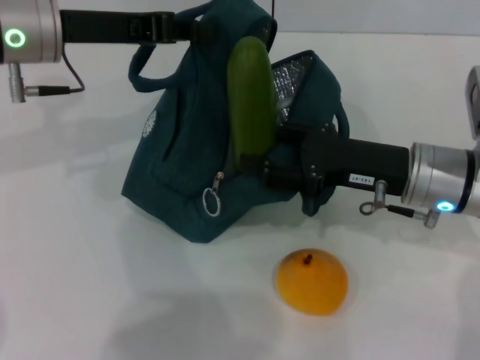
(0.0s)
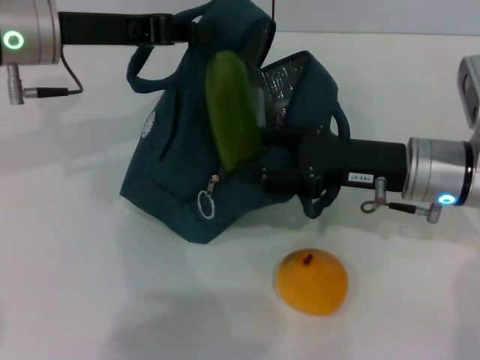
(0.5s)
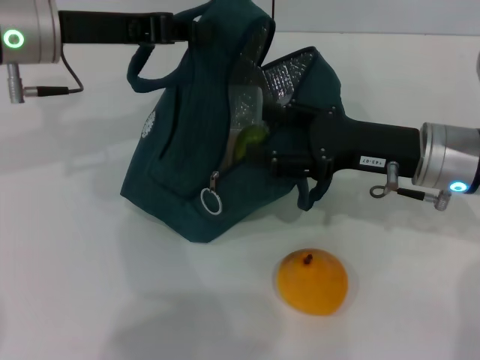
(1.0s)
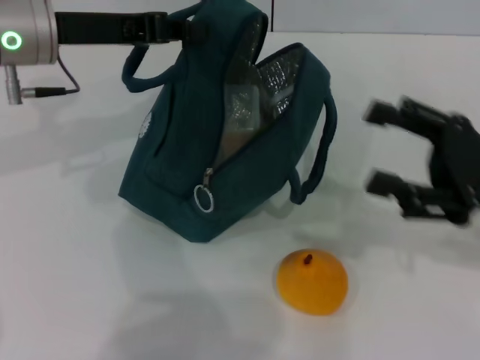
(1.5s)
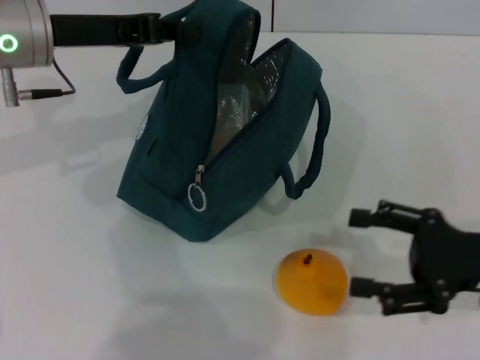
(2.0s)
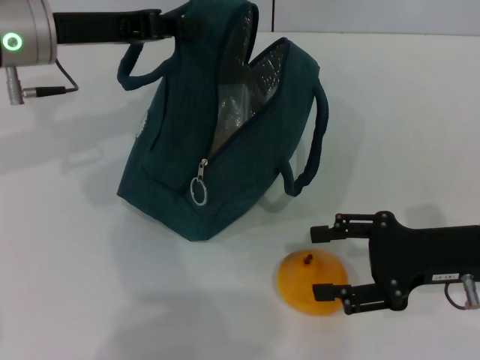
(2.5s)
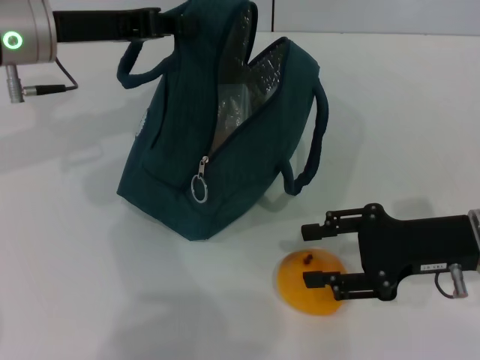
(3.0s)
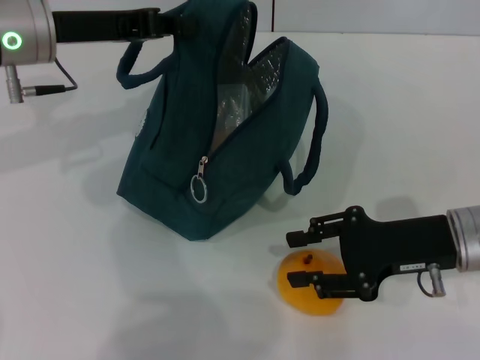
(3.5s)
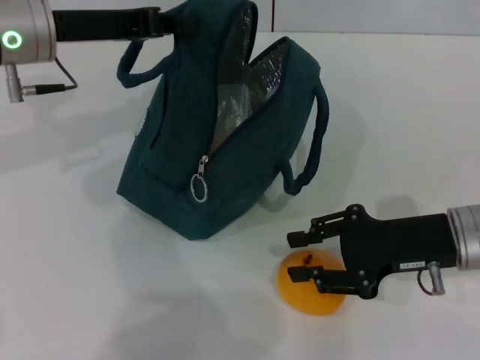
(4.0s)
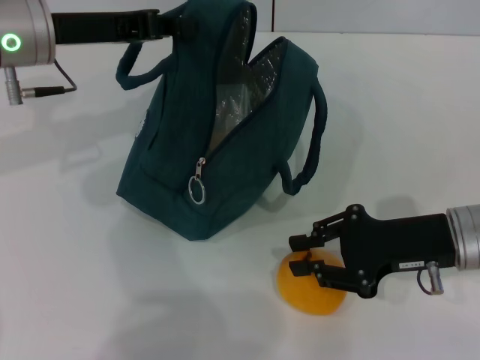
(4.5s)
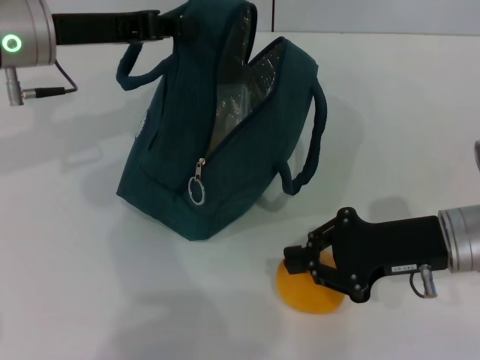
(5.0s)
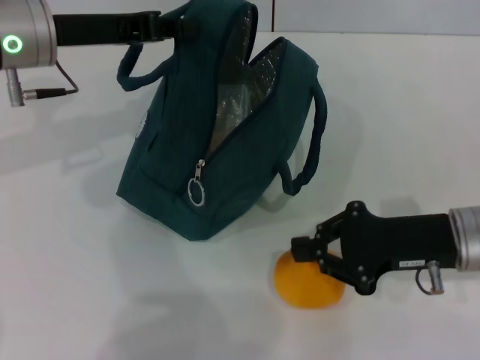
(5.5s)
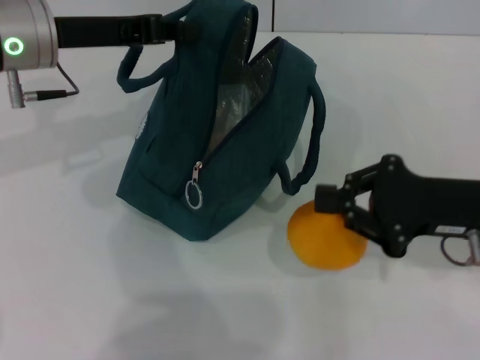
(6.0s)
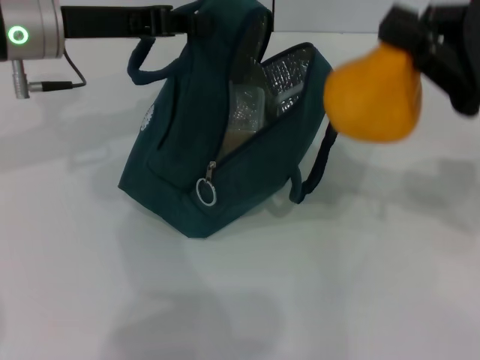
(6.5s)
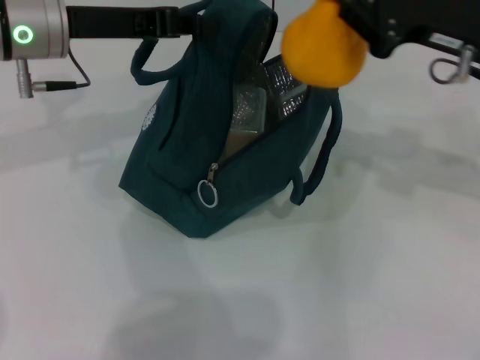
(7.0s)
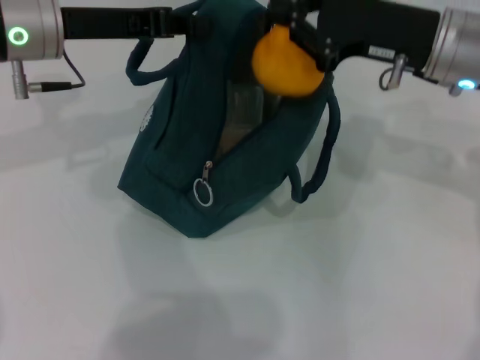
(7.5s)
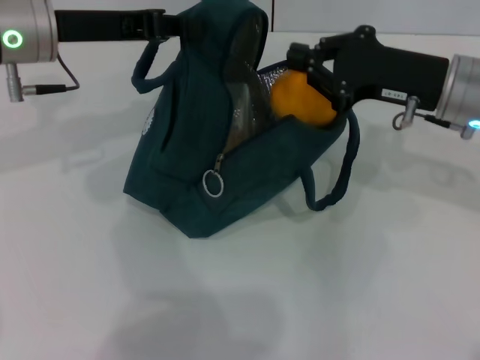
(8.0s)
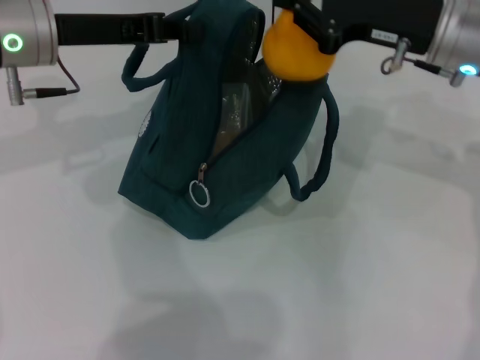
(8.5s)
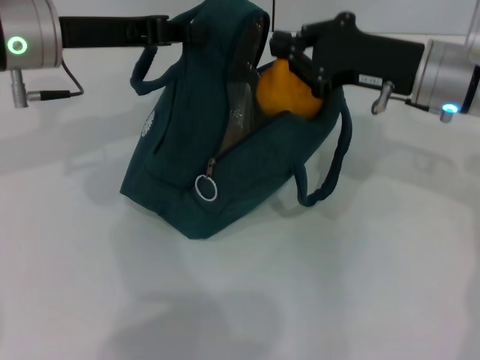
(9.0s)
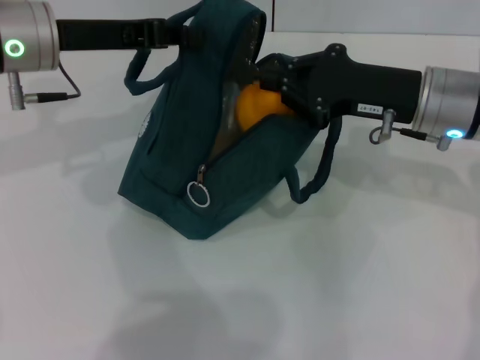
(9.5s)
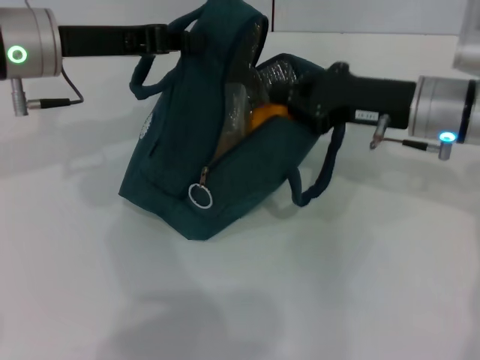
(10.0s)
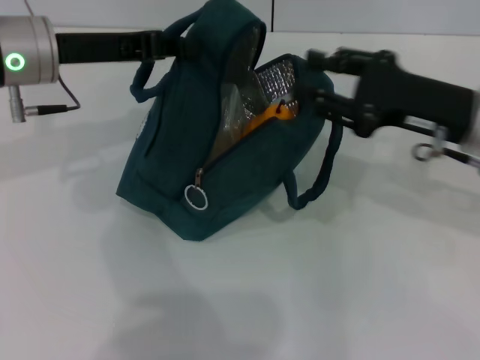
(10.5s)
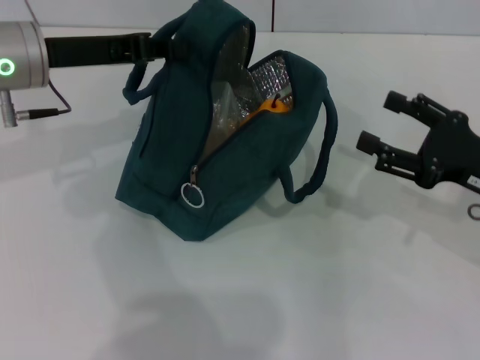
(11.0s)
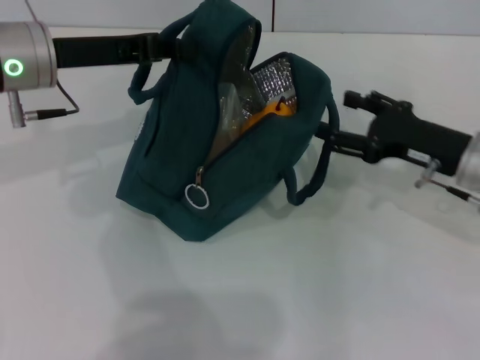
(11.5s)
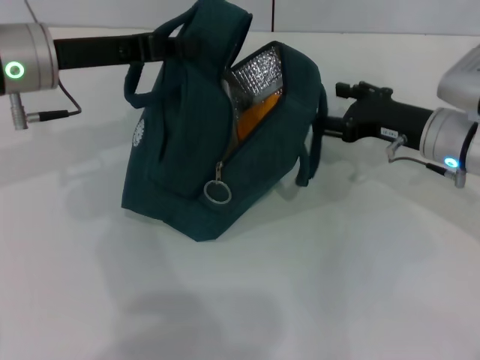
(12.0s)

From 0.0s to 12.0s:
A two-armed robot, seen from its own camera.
Step, from 1.5s to 5.0s: Grab the pear with your right hand.
From 0.0s to 2.0s: The right gripper shifts approximately 10 cm to the right and backward.
From 2.0s to 4.0s: The right gripper shifts roughly 5 cm to the left, and closes up.
From 4.0s to 6.0s: The right gripper closes up.
From 6.0s to 8.0s: The right gripper is displaced forward by some 10 cm.
From 8.0s to 10.0s: The grippers stay close to where they were, moving slightly.
From 10.0s to 12.0s: The right gripper goes to the right and returns, approximately 10 cm each way, and opens up.

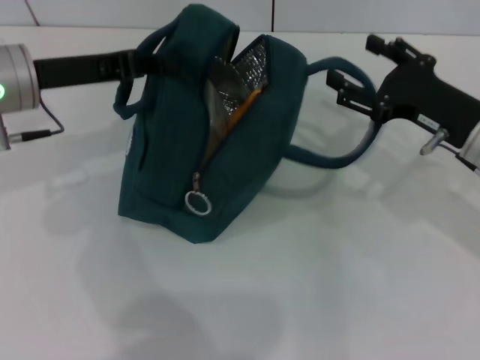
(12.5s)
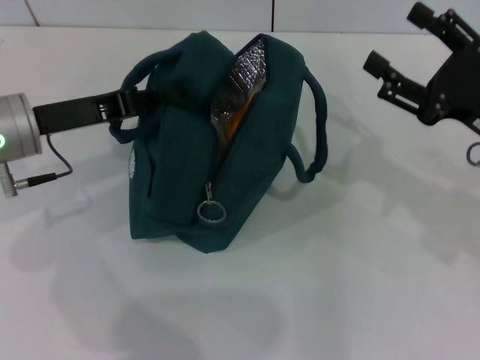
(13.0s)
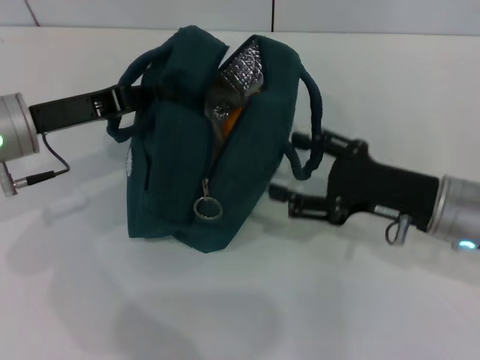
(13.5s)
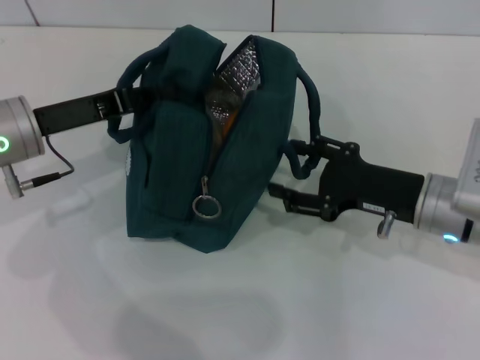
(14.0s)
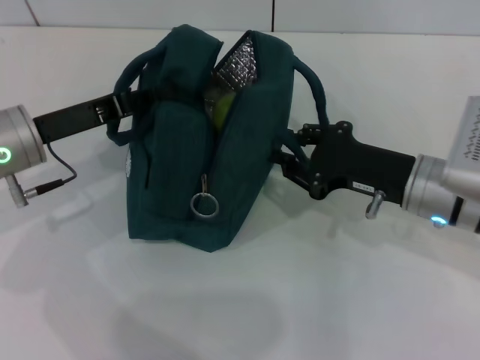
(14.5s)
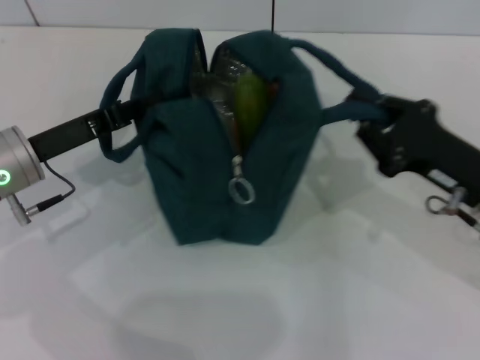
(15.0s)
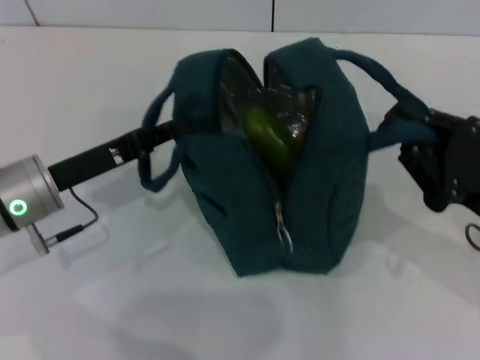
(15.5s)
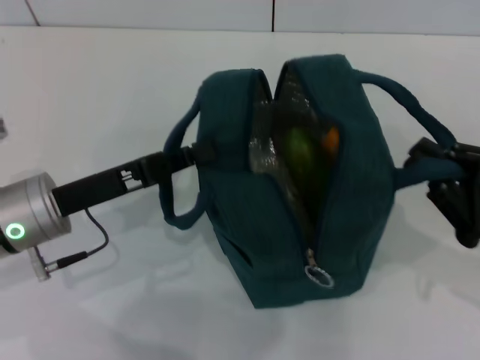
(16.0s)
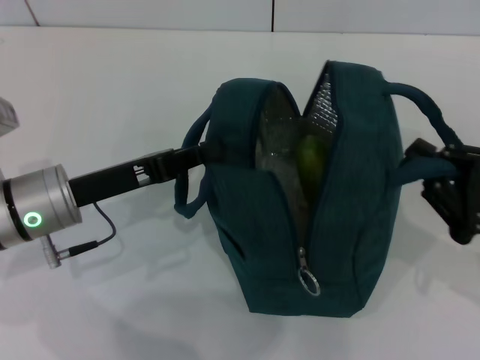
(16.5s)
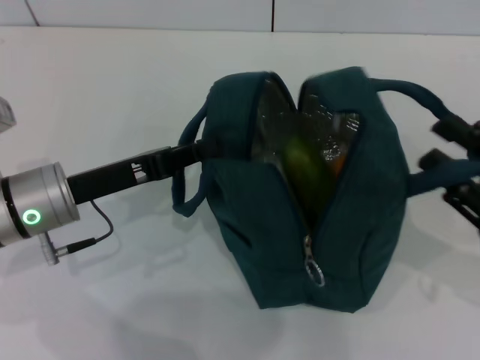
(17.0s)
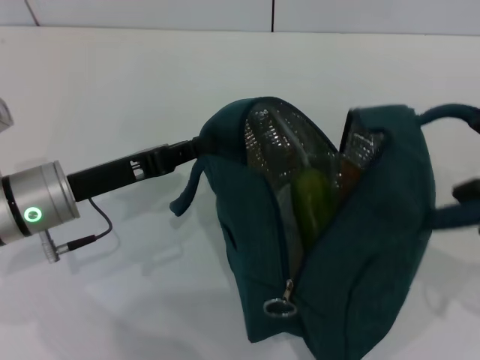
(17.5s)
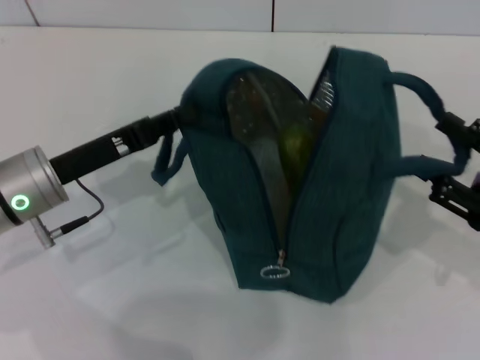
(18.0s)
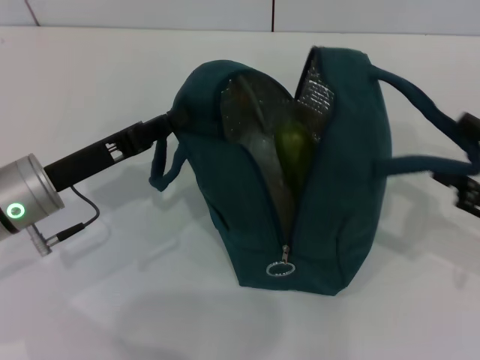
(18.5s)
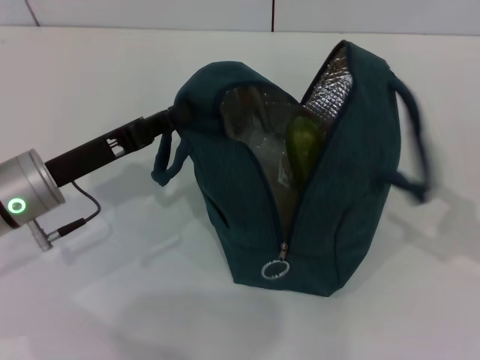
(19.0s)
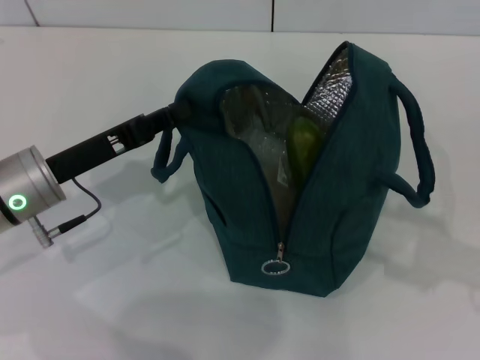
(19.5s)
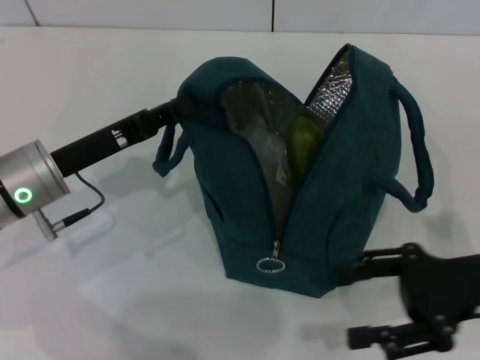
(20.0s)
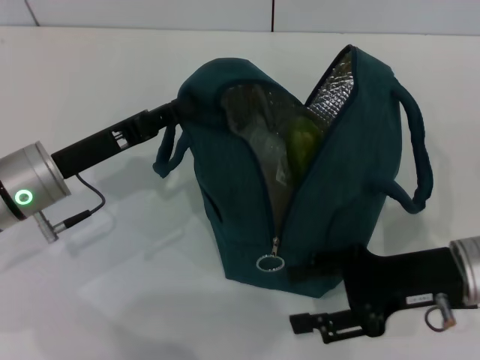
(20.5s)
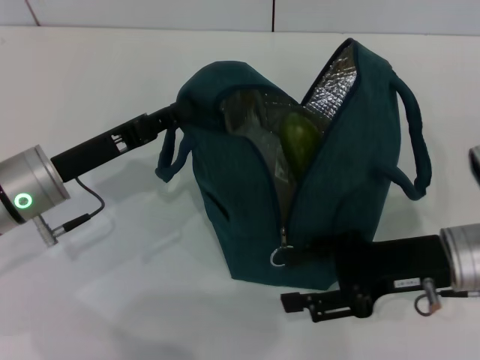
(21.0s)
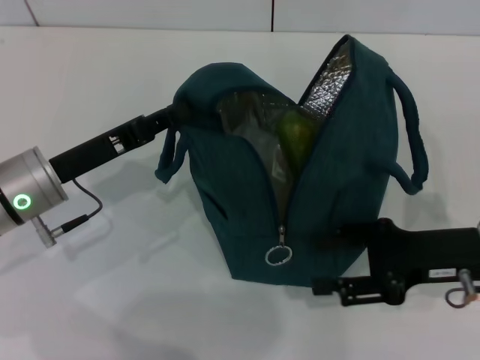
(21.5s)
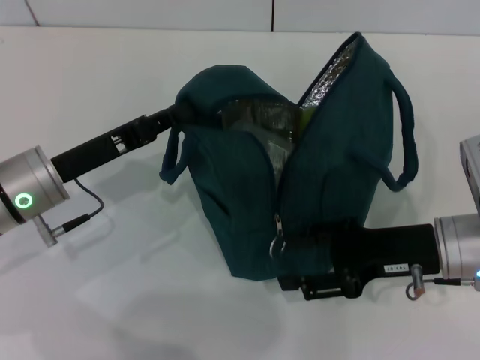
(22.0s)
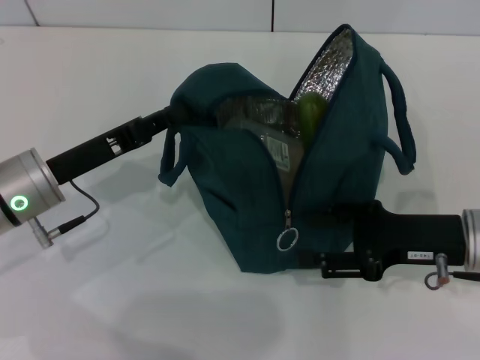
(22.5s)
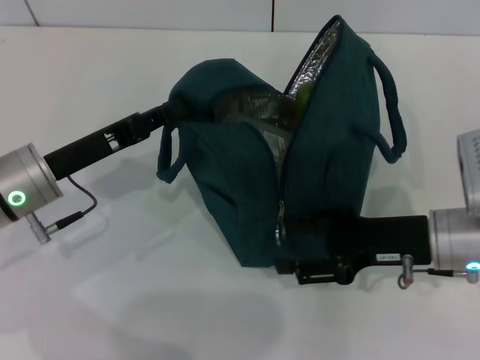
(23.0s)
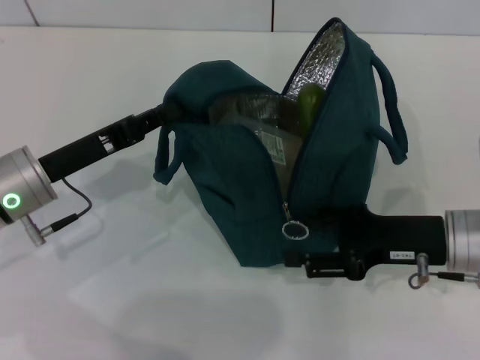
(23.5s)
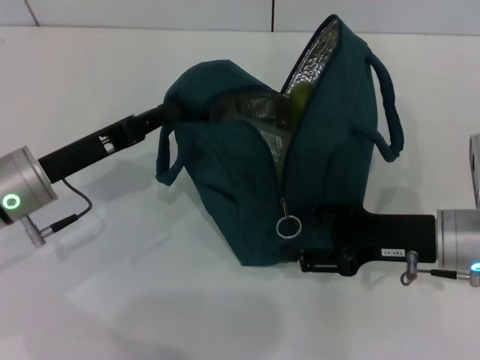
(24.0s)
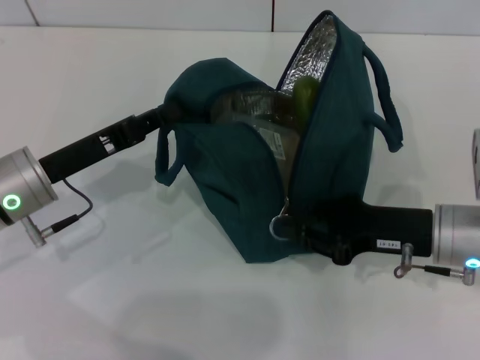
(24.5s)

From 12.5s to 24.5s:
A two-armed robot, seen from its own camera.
Step, from 12.5s to 18.5s: Hold the lunch bag with your right hand.
From 12.5s to 14.5s: The left gripper travels downward by approximately 5 cm, while the right gripper moves roughly 5 cm, and closes up.
From 14.5s to 16.5s: The left gripper changes place by approximately 5 cm; the right gripper shifts roughly 15 cm to the right and backward, and closes up.
From 16.5s to 18.5s: The right gripper opens up.
From 18.5s to 20.5s: The right gripper shifts some 10 cm to the left.
From 22.5s to 24.5s: The right gripper closes its fingers.

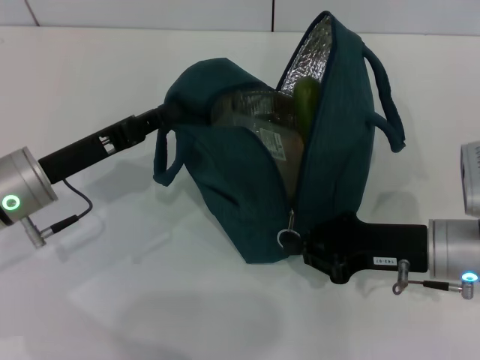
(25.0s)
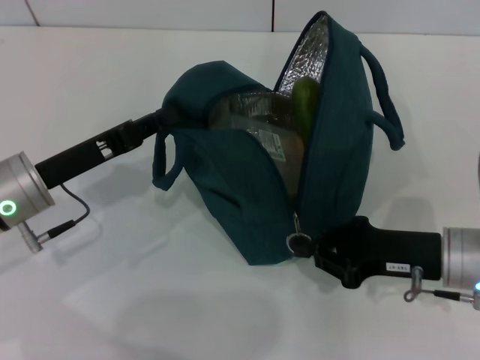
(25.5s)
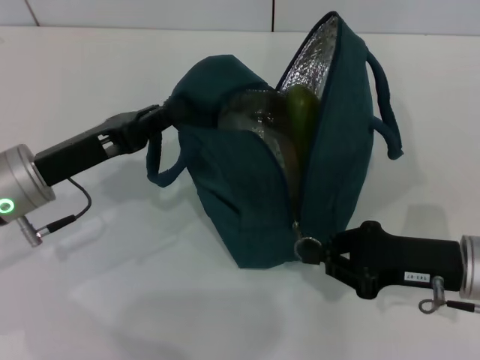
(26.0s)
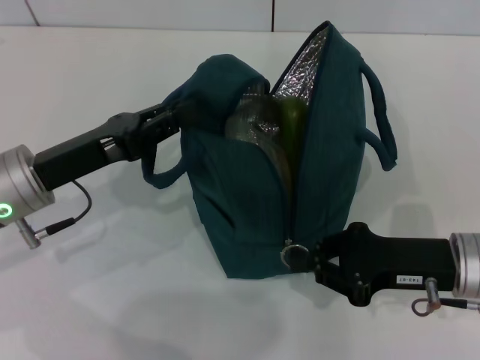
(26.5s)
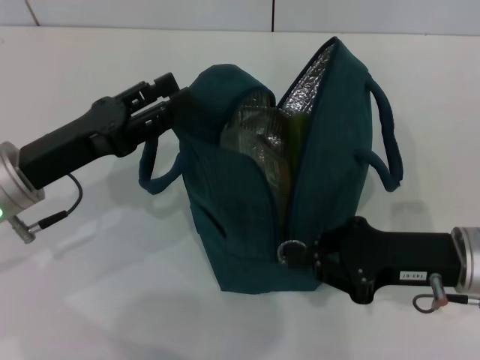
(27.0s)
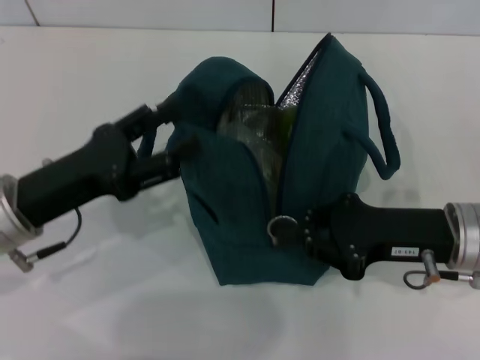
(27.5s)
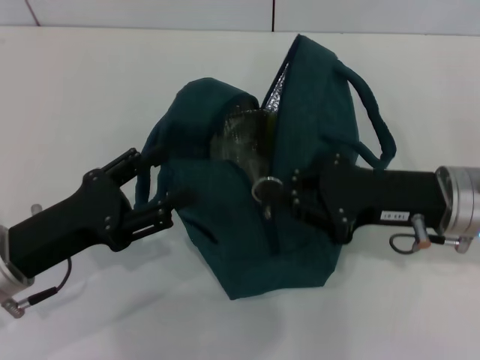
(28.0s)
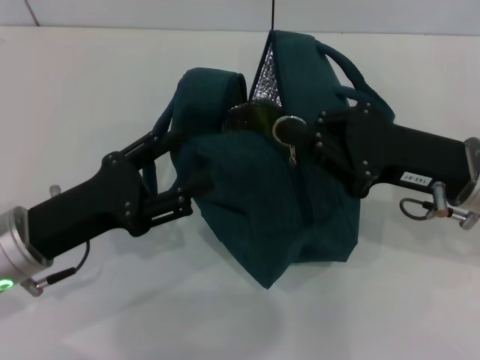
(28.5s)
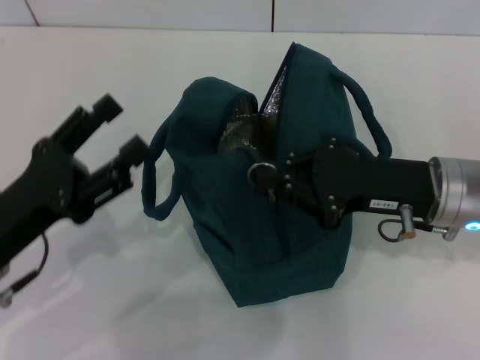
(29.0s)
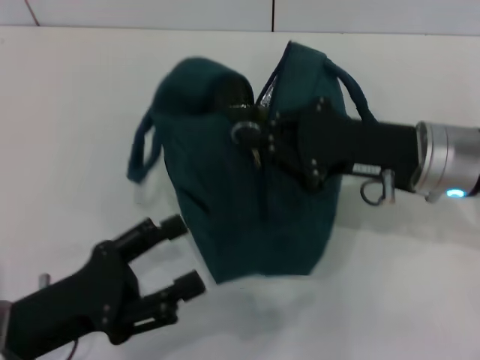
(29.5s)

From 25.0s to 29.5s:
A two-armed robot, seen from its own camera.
Step, from 25.0s to 27.0s: Hold the lunch bag with your left hand.
From 25.0s to 27.0s: The left gripper opens.
From 27.0s to 29.5s: The left gripper goes roughly 10 cm backward, and opens. The right gripper goes about 10 cm forward and upward.
